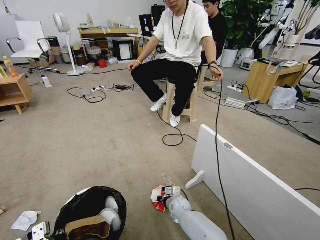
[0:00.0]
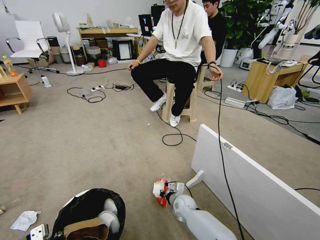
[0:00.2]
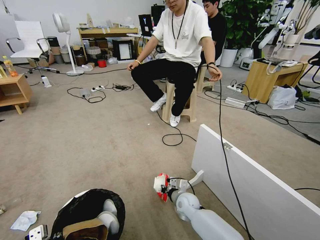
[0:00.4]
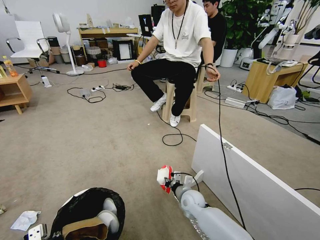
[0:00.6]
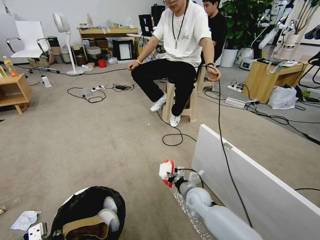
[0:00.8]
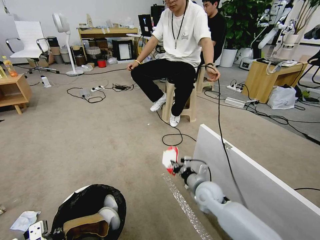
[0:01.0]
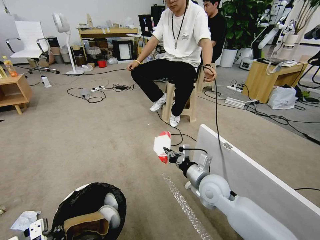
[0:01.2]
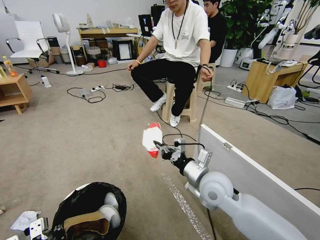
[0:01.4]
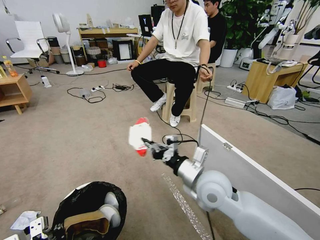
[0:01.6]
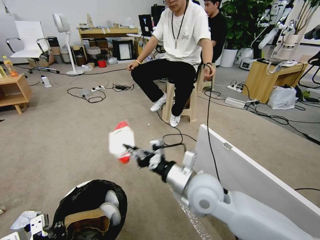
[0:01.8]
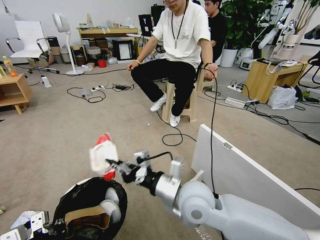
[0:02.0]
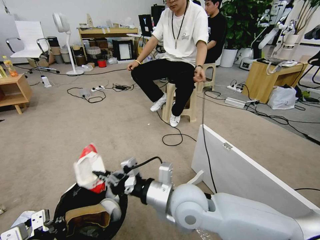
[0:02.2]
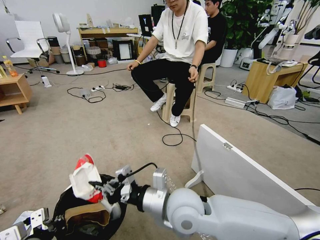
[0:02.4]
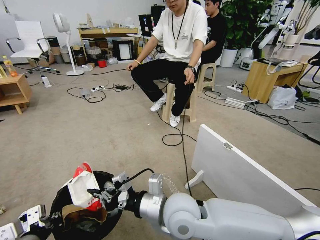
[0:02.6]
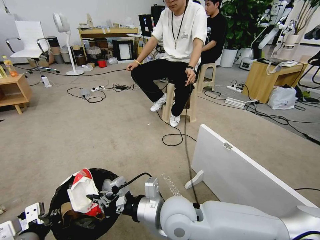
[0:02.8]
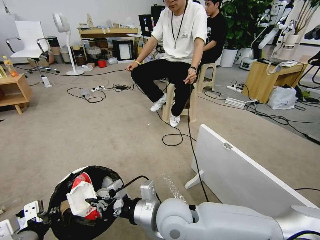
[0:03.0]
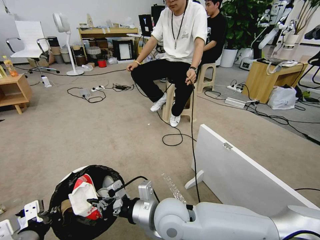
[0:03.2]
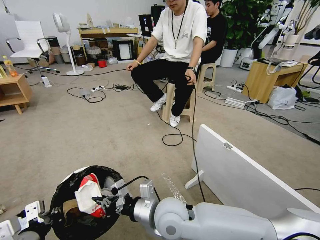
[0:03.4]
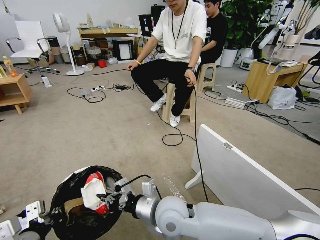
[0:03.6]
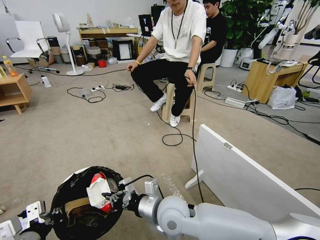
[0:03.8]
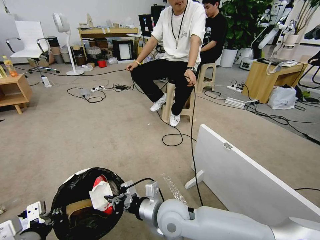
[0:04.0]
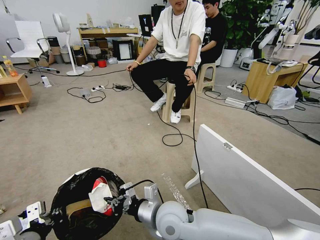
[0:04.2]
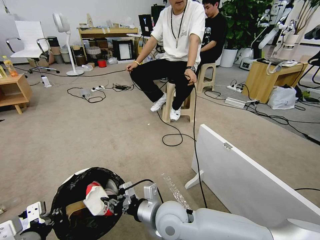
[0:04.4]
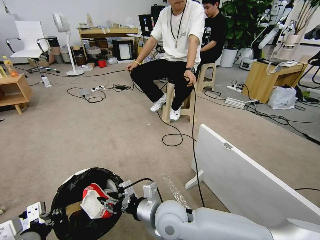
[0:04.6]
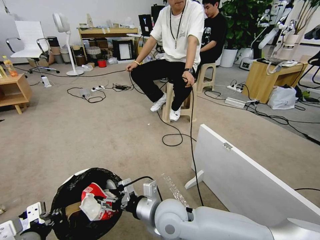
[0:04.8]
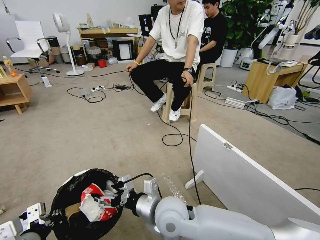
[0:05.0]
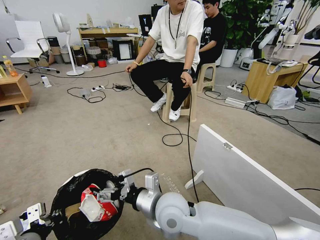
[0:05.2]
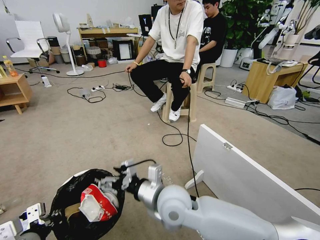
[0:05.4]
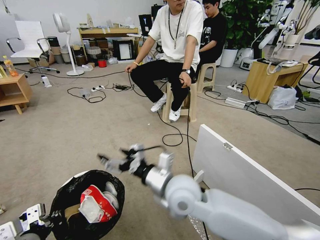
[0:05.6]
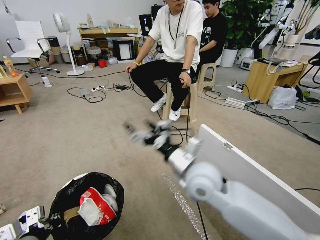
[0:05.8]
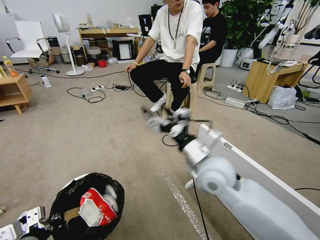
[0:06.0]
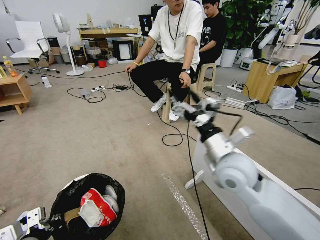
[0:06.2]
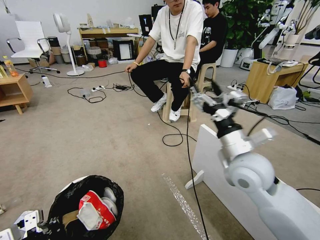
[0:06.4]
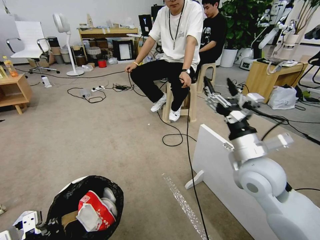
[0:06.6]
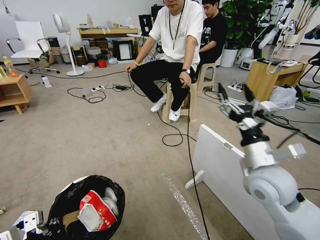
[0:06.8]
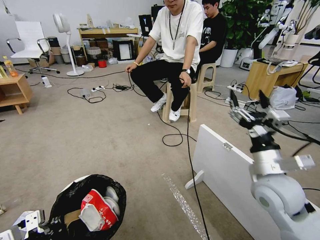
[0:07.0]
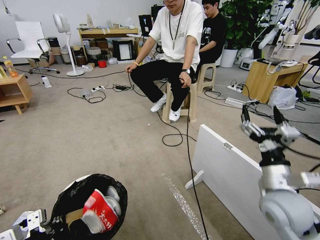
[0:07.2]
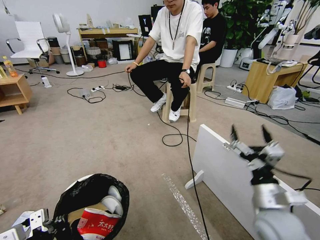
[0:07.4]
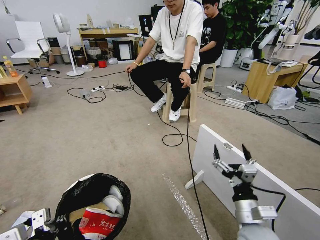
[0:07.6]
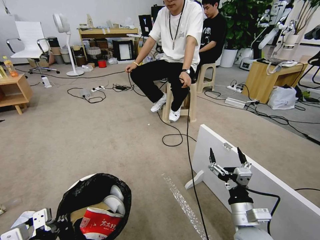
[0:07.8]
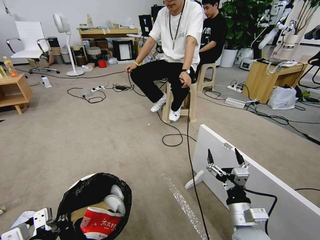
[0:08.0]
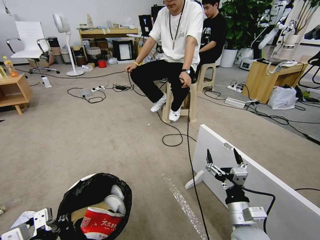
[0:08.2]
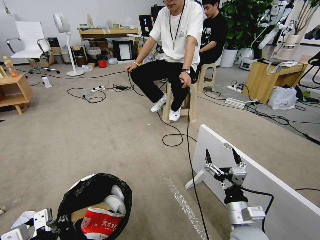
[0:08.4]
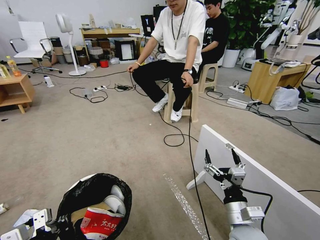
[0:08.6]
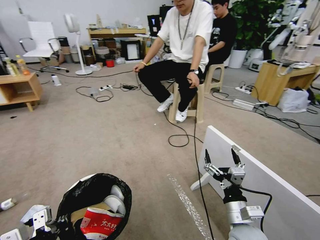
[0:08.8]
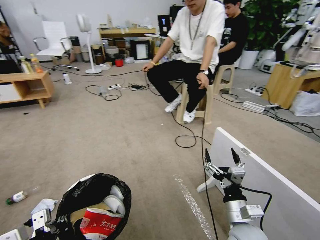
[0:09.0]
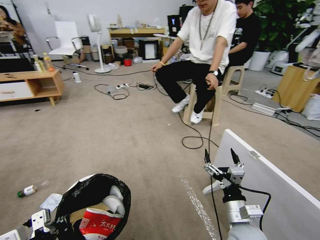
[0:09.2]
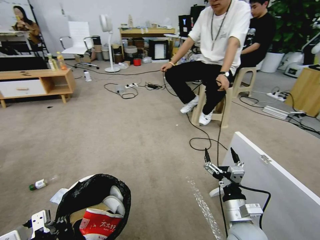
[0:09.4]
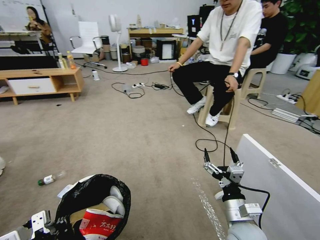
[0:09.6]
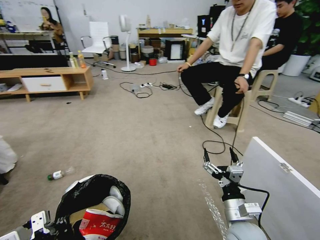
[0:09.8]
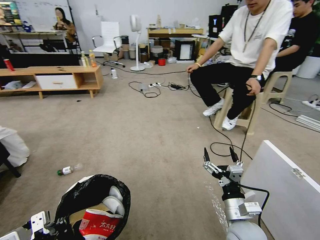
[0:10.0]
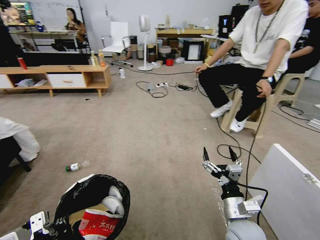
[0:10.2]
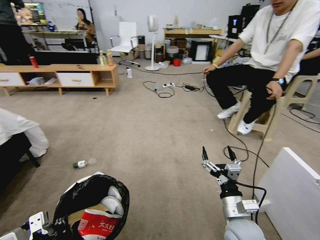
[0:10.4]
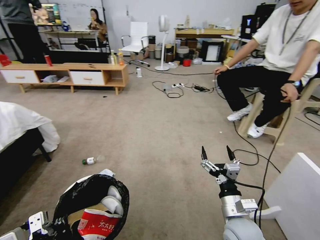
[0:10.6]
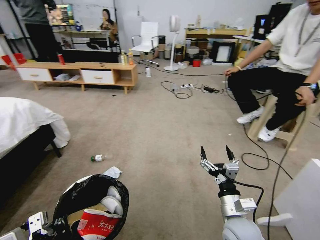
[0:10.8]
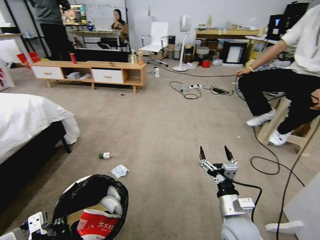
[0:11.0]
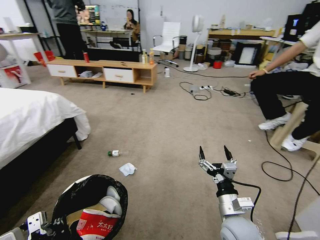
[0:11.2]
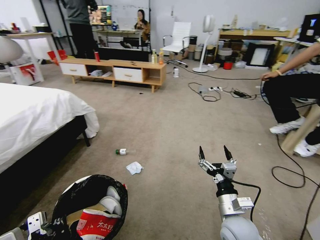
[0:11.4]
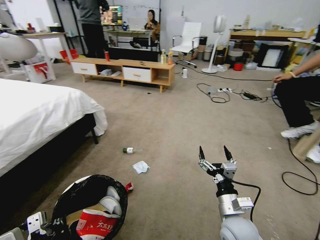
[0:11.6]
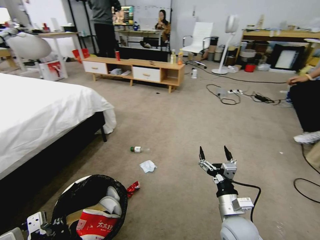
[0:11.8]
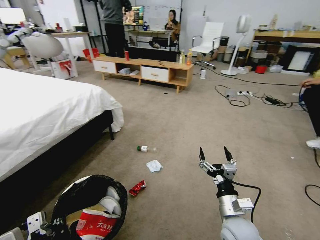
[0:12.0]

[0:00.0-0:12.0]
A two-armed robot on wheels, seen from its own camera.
Task of the whole recording: Pick up the trash bin and place the garbage on the floor into it.
0:00.0 to 0:01.6: The right gripper goes approximately 35 cm upward.
0:01.6 to 0:03.0: The right gripper is displaced to the left and backward by some 15 cm.
0:03.0 to 0:04.4: The grippers stay close to where they were, moving slightly.
0:04.4 to 0:06.0: The right gripper travels upward, to the right and forward by about 20 cm, and opens.
0:06.0 to 0:07.6: The right gripper moves downward, to the right and backward, about 20 cm.

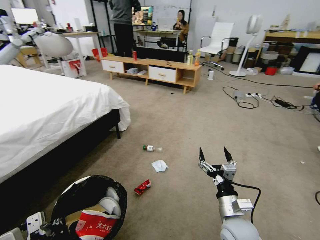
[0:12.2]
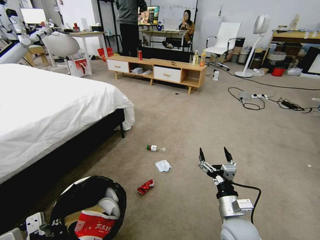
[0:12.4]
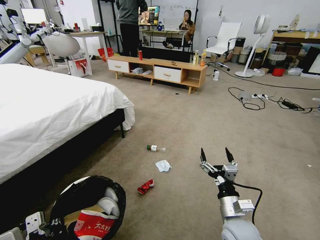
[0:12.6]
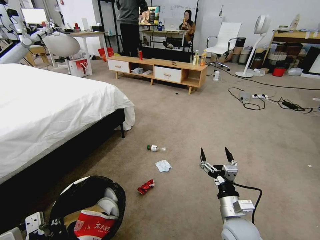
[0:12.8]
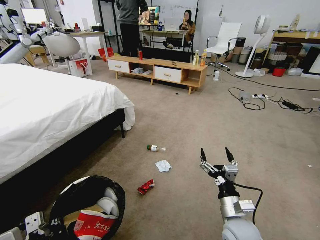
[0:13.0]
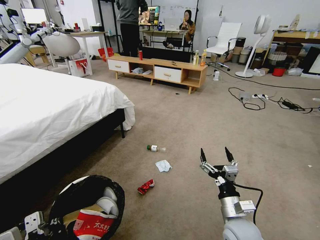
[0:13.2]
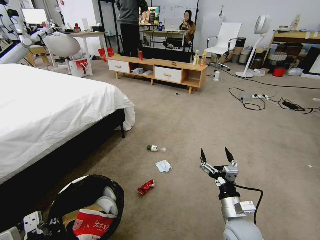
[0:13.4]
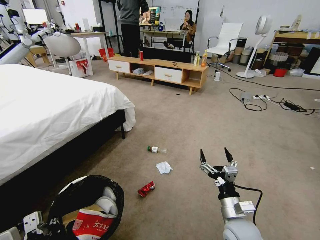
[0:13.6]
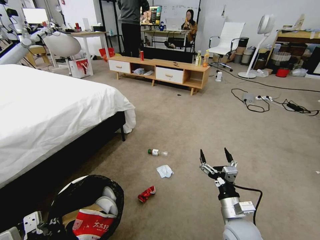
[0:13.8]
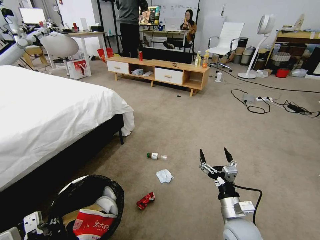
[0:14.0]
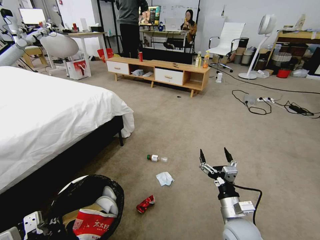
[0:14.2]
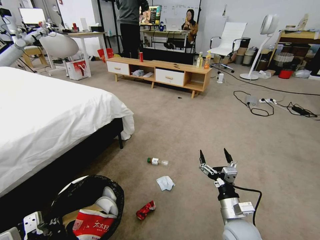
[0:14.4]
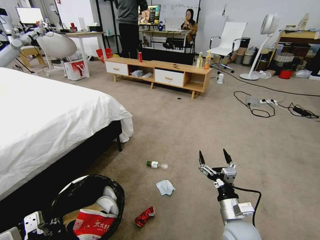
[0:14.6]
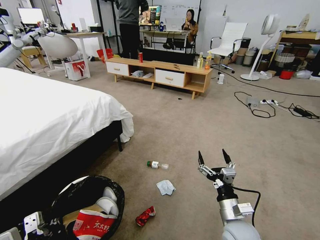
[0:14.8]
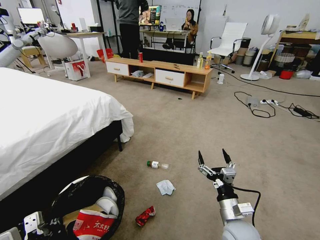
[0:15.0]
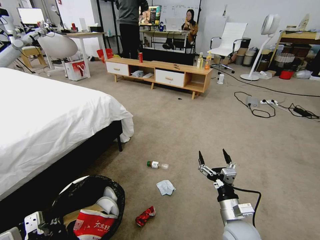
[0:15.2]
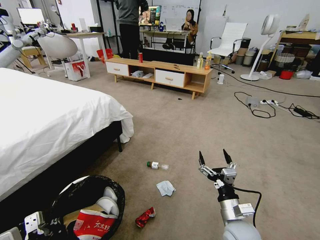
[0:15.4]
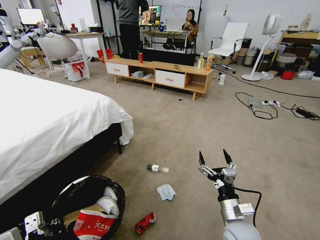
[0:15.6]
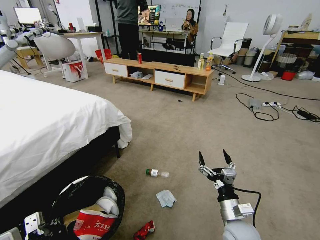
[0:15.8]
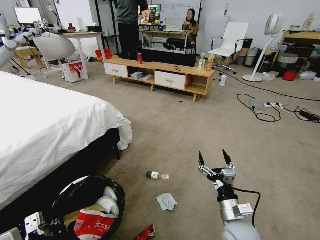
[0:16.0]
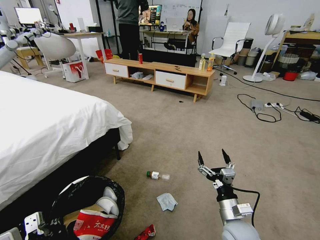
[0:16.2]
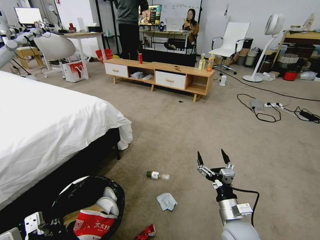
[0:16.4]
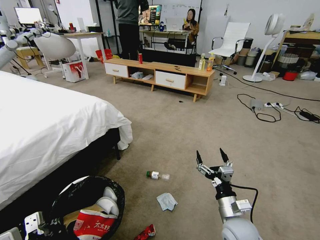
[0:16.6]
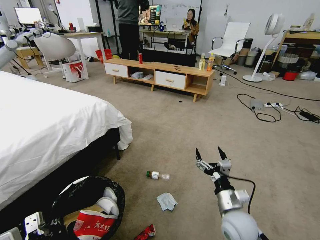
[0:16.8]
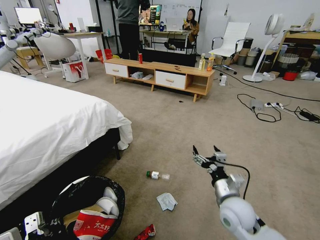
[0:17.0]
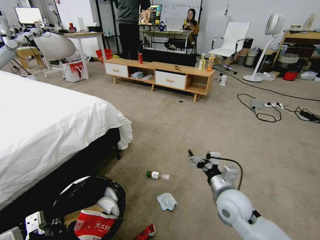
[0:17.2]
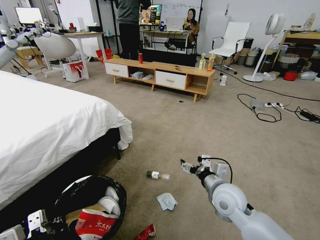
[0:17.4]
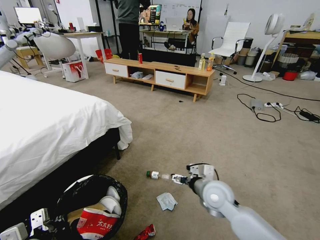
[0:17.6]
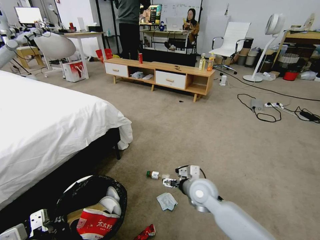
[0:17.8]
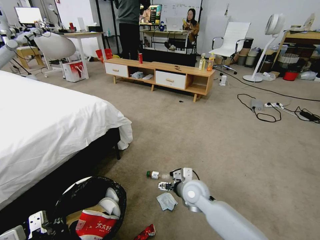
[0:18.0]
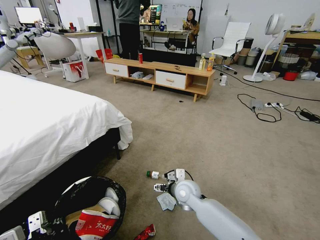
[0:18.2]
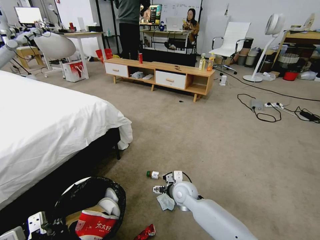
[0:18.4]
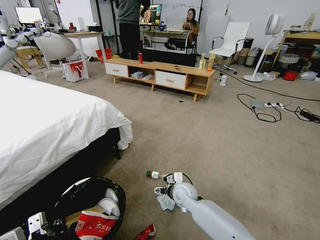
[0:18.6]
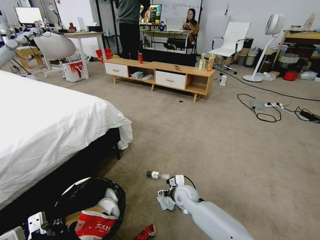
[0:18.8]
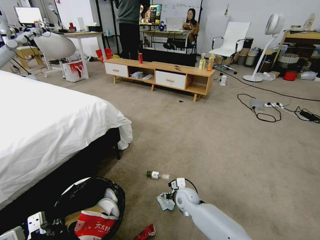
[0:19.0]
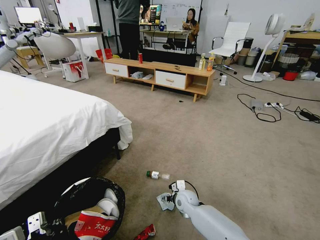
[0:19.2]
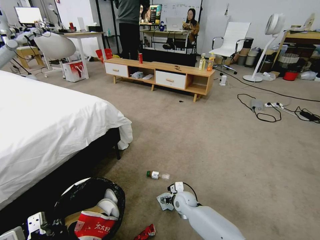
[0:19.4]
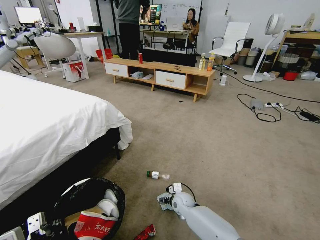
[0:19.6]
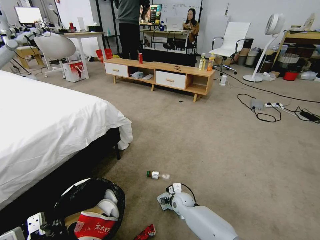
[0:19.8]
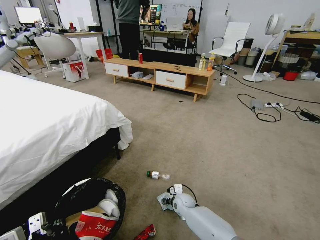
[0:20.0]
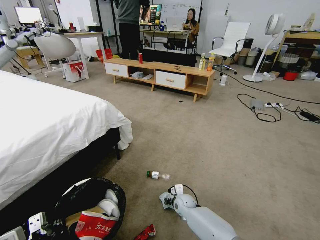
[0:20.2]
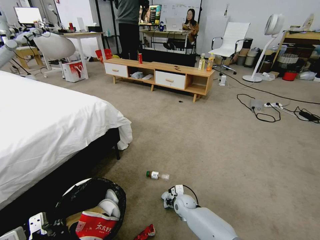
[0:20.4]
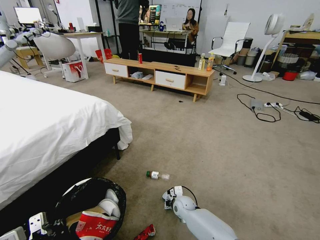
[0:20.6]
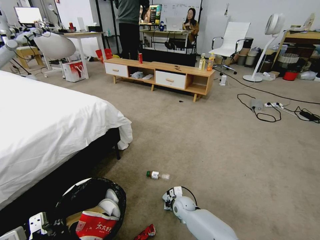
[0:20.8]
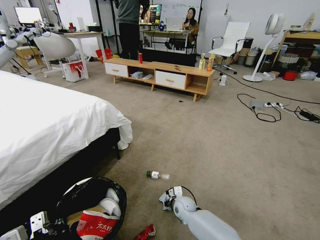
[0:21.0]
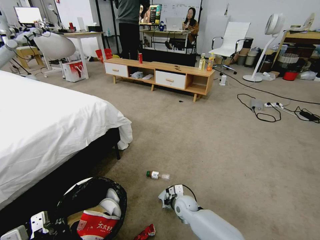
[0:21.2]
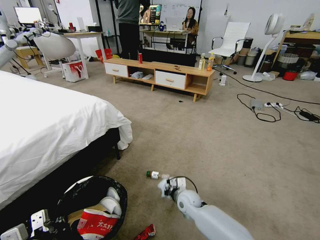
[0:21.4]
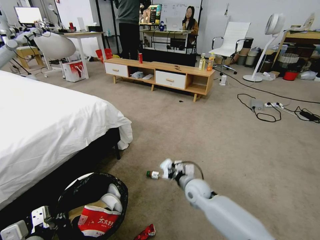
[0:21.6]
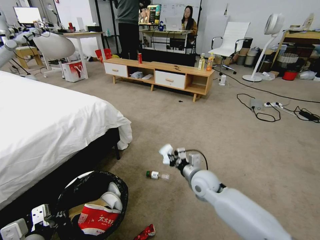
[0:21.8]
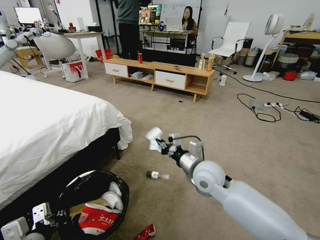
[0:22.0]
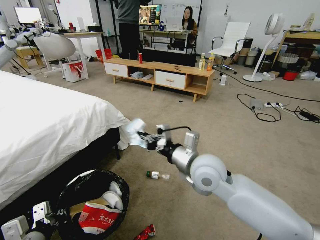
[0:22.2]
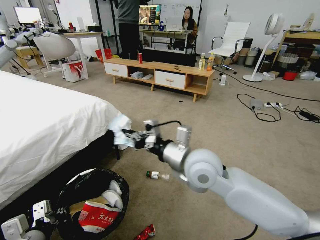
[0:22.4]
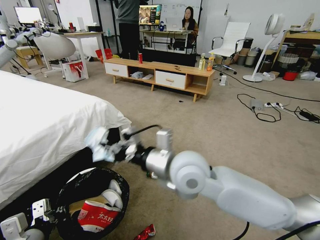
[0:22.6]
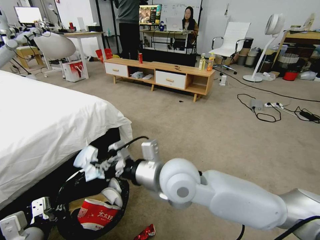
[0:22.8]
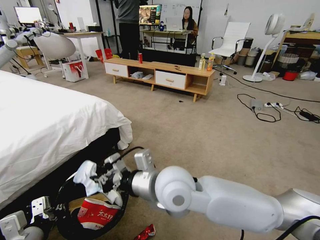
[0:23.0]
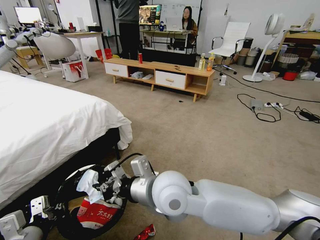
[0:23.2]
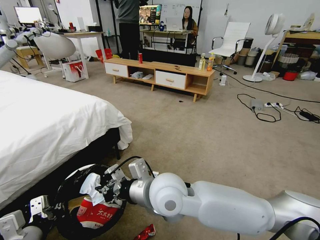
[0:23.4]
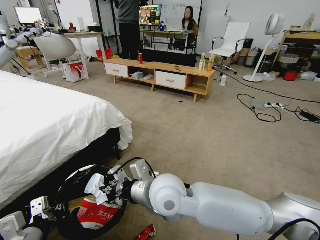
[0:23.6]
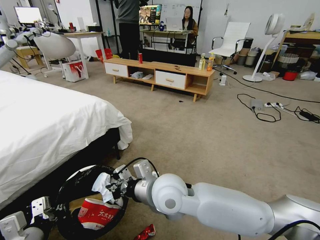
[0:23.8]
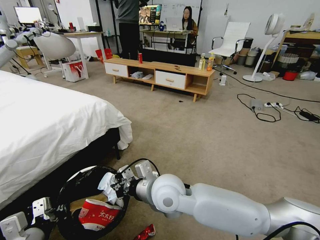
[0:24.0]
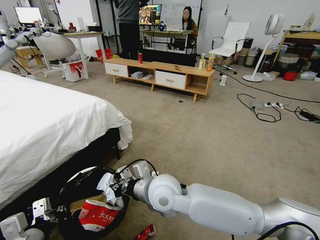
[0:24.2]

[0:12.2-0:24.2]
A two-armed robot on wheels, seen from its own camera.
Task of the whole recording: Pick up the trash bin and place the garbage on the floor into it.
0:16.6 to 0:18.2: The right gripper travels forward and to the left by some 20 cm.
0:18.2 to 0:19.8: The right gripper travels downward by approximately 15 cm.
0:19.8 to 0:21.2: The right gripper closes its fingers.
0:21.2 to 0:22.6: The right gripper travels upward by roughly 40 cm.
0:22.6 to 0:24.2: The right gripper goes some 10 cm downward and to the left.
